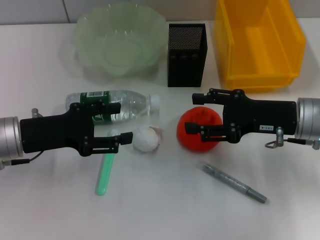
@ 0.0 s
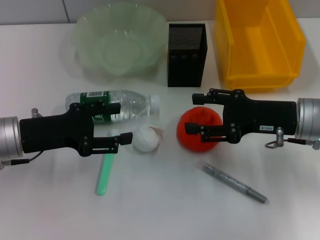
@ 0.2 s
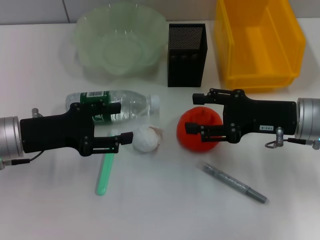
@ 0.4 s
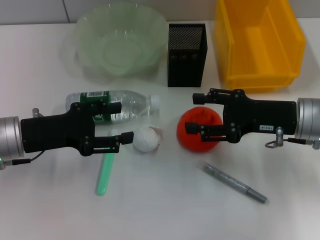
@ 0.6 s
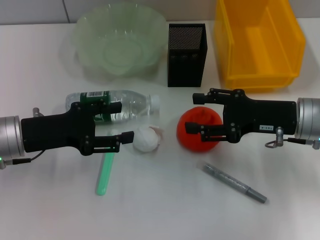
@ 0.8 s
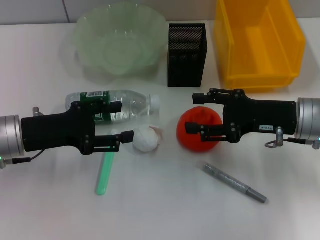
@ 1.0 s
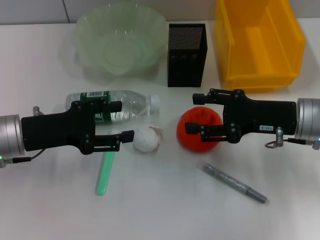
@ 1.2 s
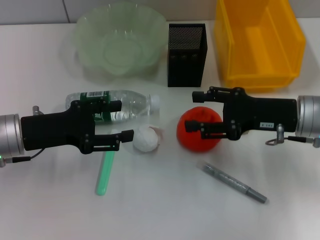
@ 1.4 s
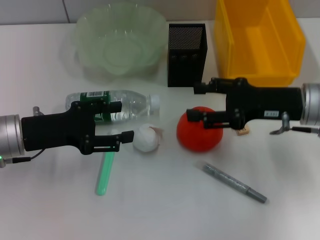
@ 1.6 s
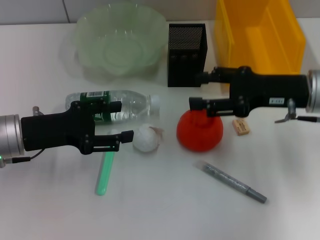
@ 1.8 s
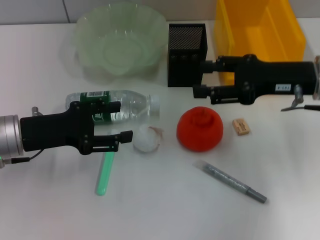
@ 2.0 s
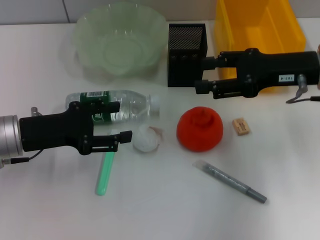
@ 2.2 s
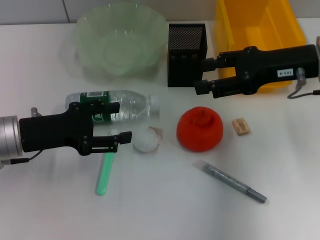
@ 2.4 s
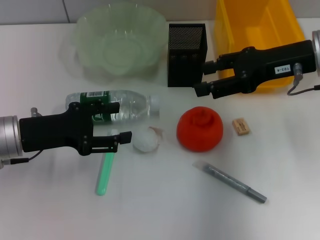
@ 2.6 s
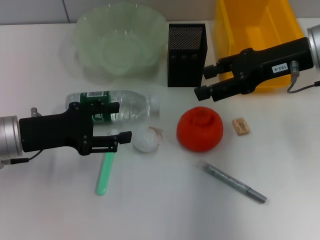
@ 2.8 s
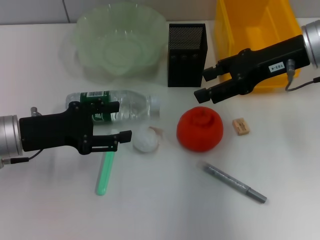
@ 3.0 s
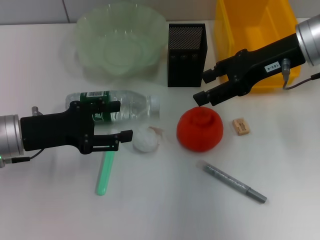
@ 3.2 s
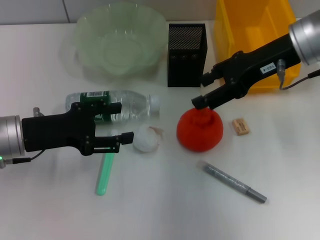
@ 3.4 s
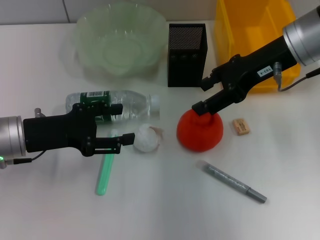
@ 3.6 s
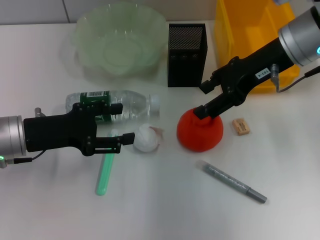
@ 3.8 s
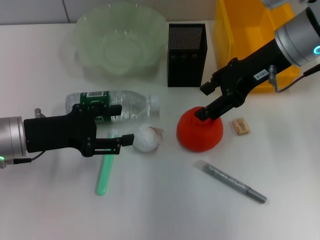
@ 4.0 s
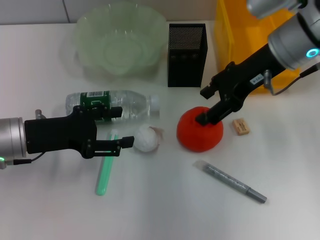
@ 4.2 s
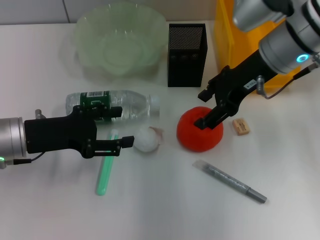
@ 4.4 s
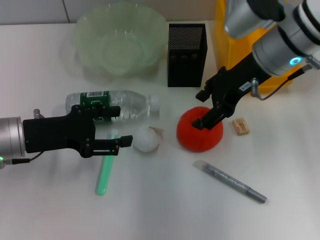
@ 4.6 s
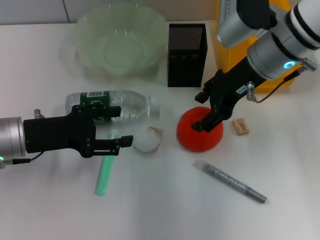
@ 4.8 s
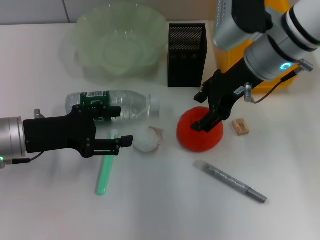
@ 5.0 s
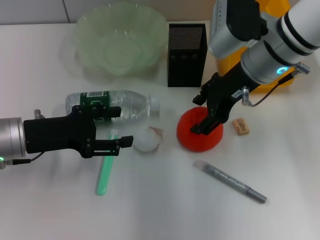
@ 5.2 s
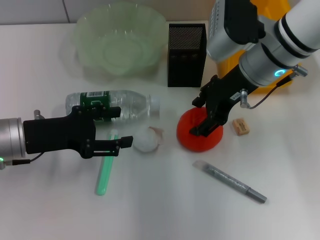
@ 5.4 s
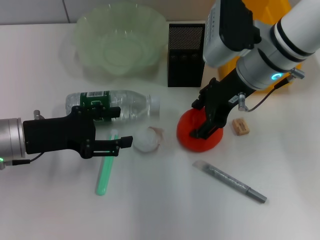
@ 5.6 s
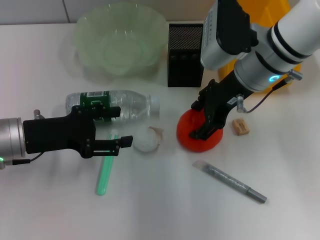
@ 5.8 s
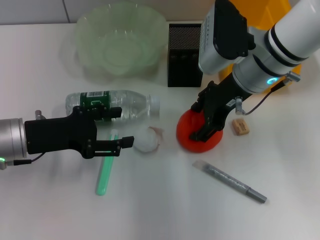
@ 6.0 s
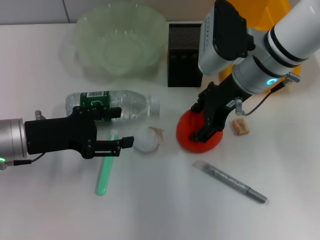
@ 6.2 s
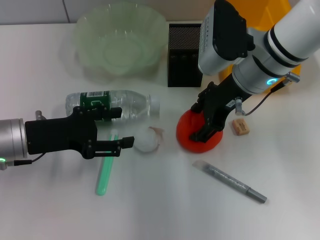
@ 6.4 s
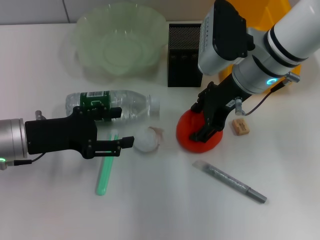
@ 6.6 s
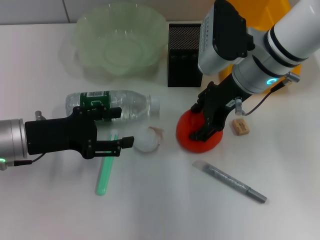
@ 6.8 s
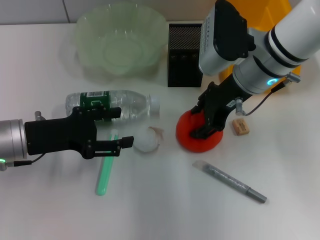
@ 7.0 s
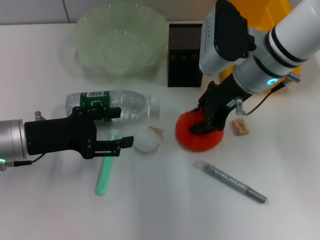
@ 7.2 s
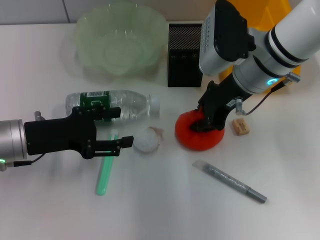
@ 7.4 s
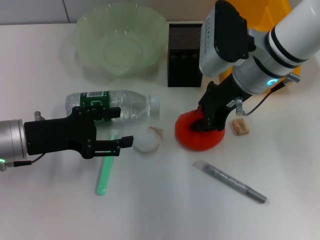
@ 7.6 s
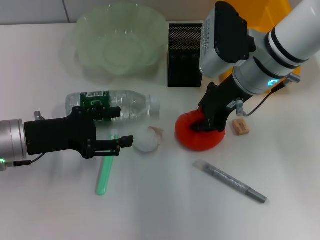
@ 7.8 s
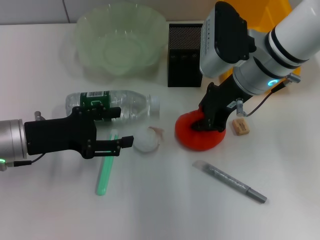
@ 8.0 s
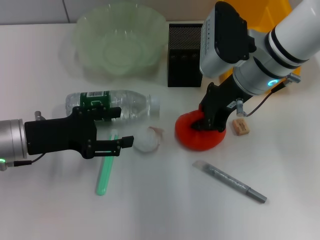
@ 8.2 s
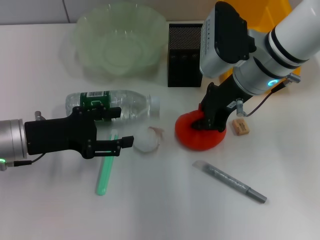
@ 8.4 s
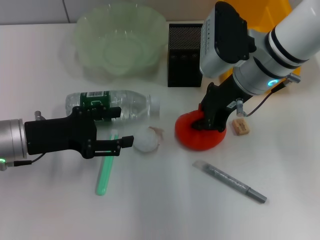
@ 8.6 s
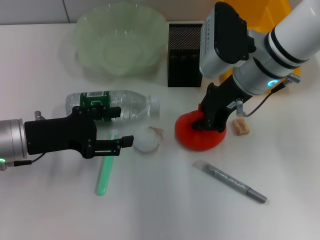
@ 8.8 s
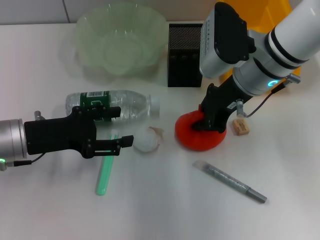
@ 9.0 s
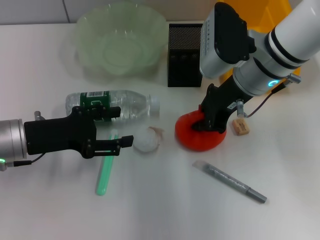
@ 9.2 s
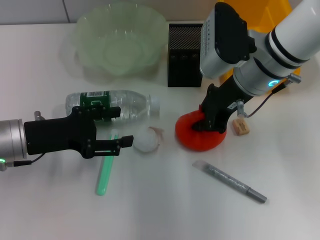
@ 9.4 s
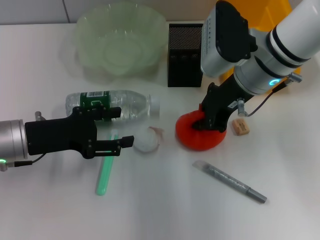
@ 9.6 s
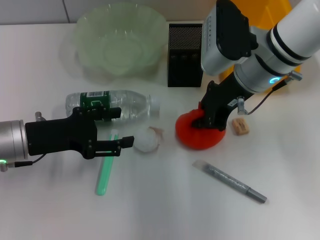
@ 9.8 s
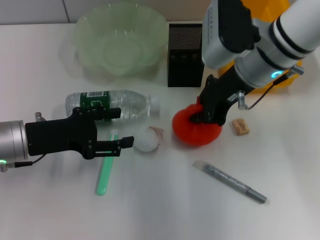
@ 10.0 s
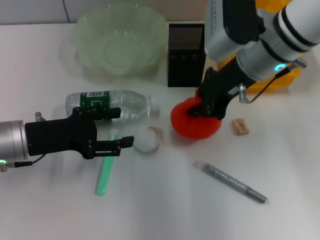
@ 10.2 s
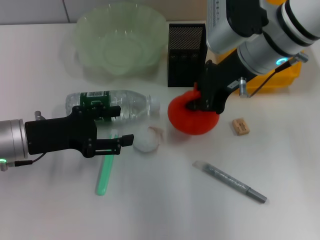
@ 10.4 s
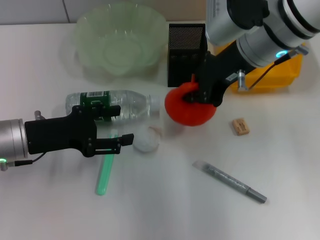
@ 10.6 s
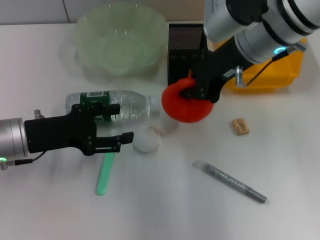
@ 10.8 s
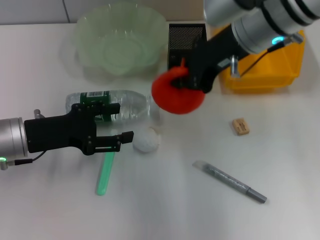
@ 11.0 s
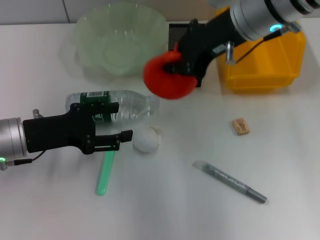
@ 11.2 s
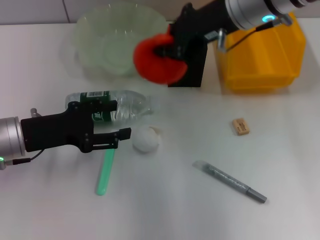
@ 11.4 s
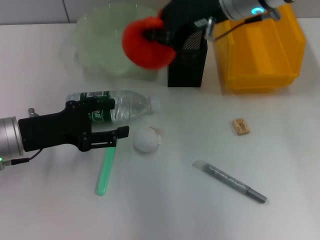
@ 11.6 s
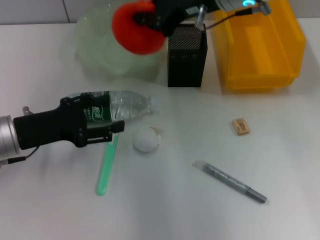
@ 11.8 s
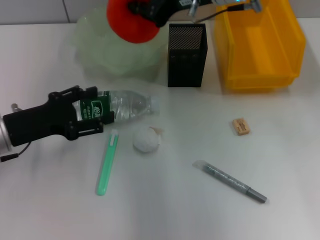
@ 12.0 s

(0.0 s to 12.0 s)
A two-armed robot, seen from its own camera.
Step, 0.0 s - 9.6 s: Grab the orange with the right hand.
0.0 s - 1.6 s: The grippers stay close to where they were, moving slightly.
1.6 s - 3.0 s: The right gripper heads upward and forward, covering approximately 10 cm.
3.0 s - 4.4 s: The right gripper moves to the left, roughly 5 cm.
4.4 s - 6.0 s: The grippers move only a little.
6.0 s - 7.6 s: The right gripper closes.
7.6 s - 9.0 s: Both grippers stay put.
9.0 s - 10.4 s: There are only small adjustments of the grippers.
10.4 s - 12.0 s: The right gripper ends up some 5 cm from where it was.

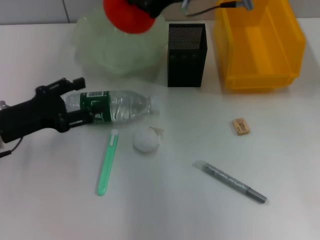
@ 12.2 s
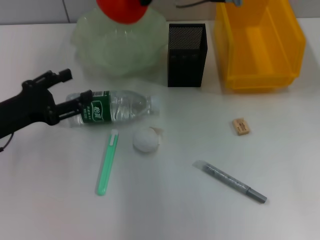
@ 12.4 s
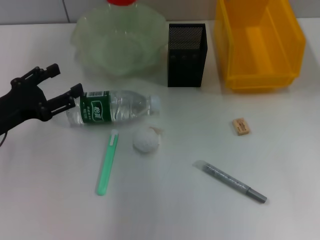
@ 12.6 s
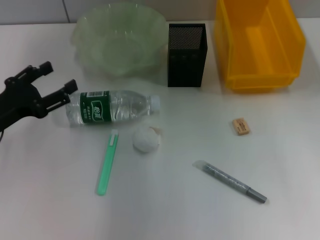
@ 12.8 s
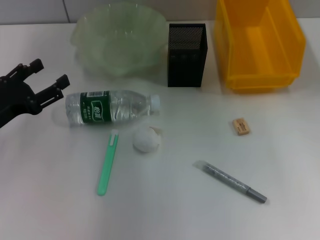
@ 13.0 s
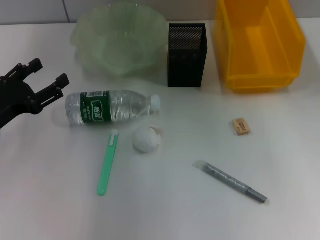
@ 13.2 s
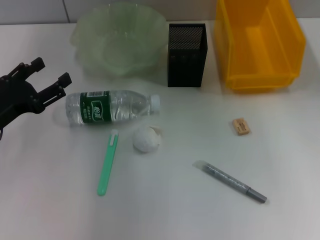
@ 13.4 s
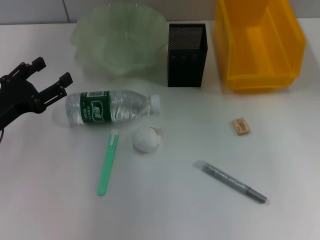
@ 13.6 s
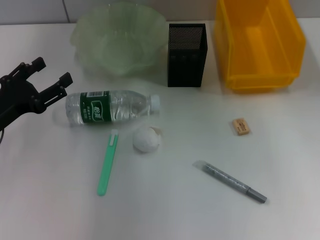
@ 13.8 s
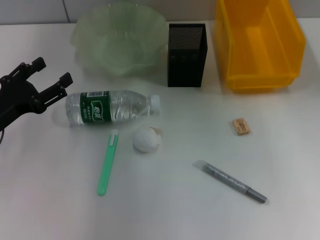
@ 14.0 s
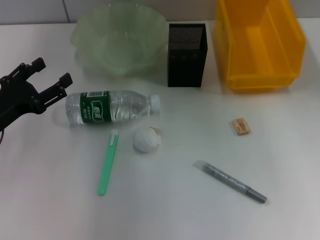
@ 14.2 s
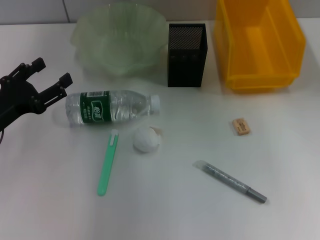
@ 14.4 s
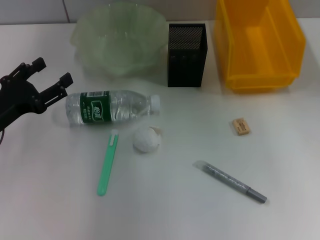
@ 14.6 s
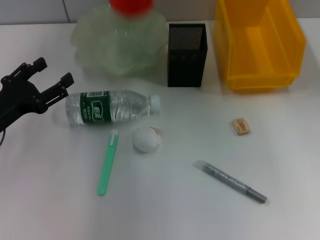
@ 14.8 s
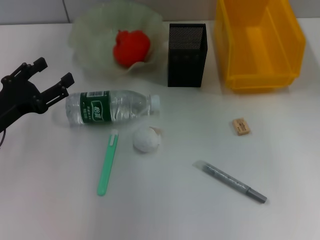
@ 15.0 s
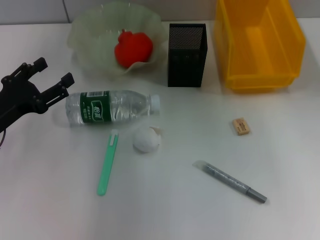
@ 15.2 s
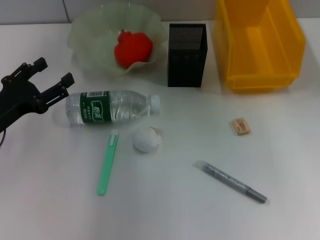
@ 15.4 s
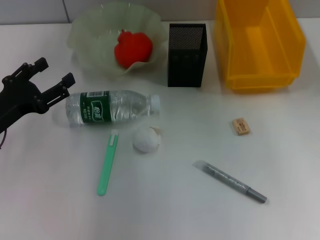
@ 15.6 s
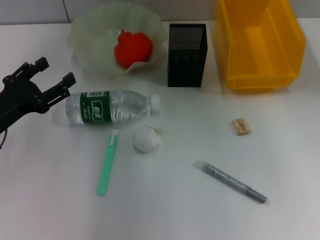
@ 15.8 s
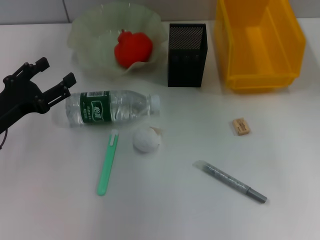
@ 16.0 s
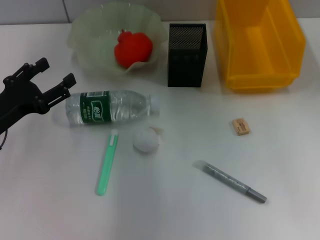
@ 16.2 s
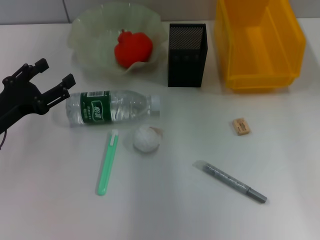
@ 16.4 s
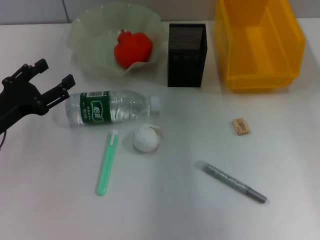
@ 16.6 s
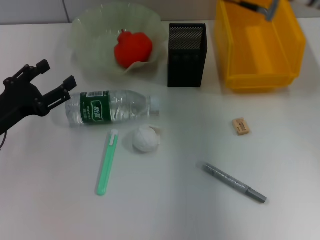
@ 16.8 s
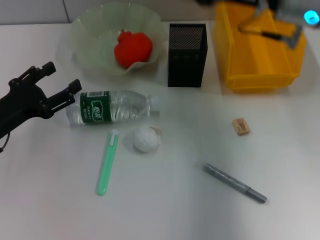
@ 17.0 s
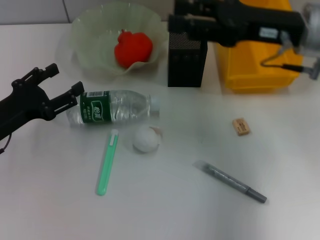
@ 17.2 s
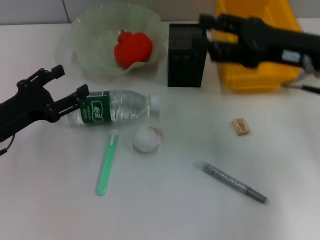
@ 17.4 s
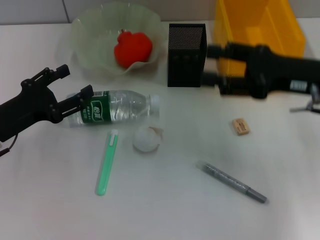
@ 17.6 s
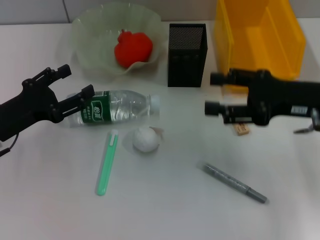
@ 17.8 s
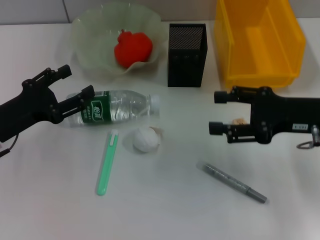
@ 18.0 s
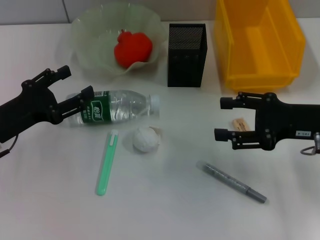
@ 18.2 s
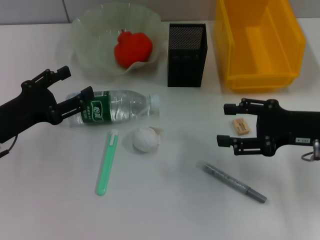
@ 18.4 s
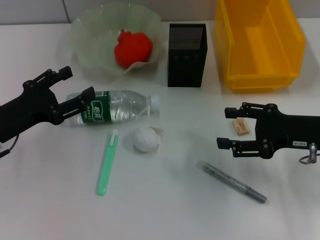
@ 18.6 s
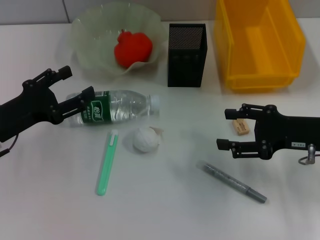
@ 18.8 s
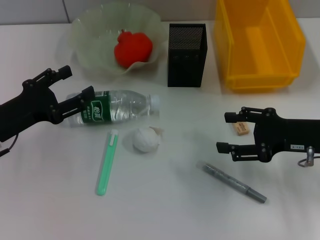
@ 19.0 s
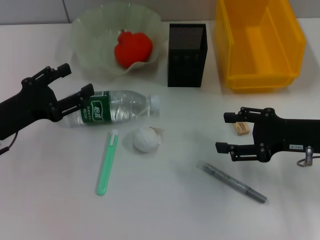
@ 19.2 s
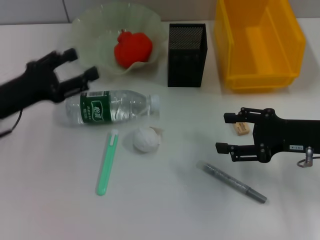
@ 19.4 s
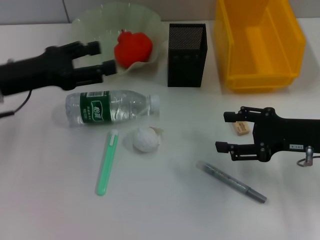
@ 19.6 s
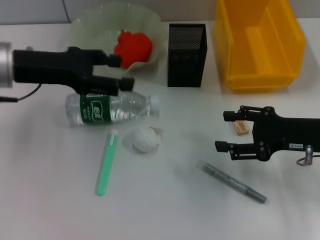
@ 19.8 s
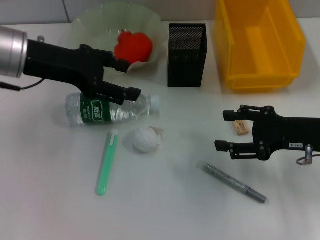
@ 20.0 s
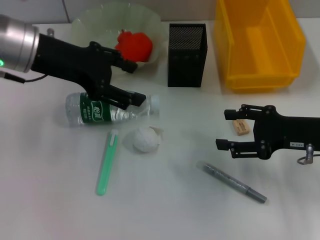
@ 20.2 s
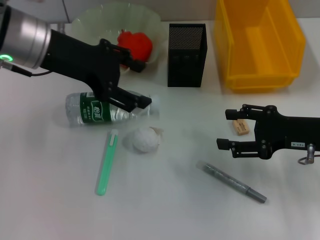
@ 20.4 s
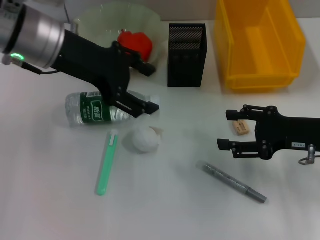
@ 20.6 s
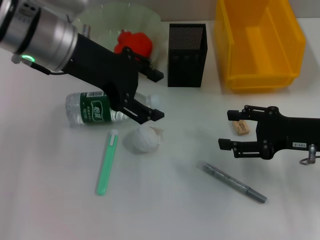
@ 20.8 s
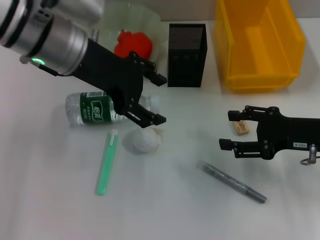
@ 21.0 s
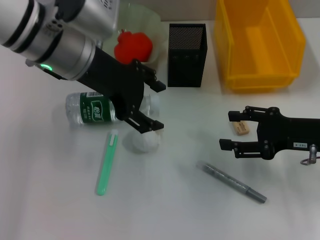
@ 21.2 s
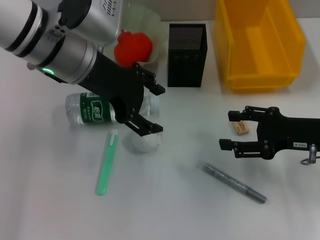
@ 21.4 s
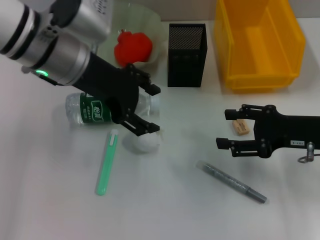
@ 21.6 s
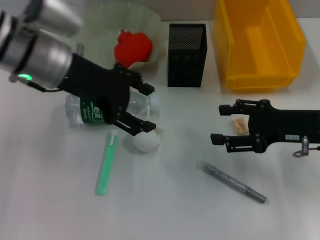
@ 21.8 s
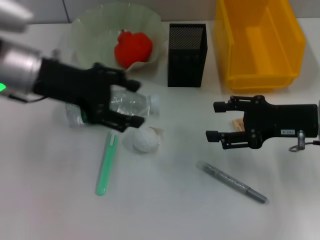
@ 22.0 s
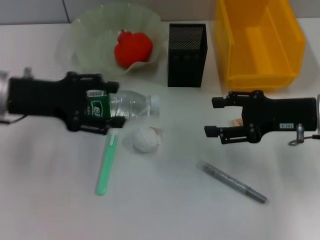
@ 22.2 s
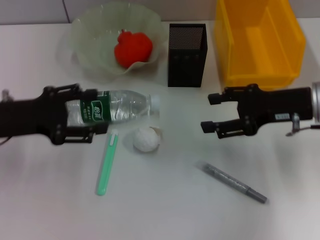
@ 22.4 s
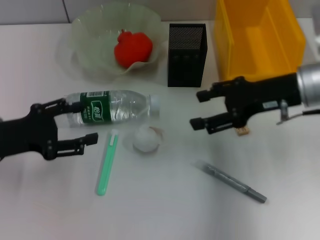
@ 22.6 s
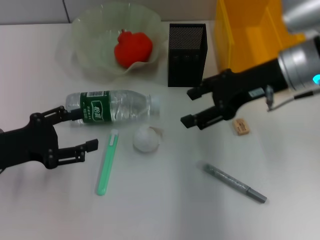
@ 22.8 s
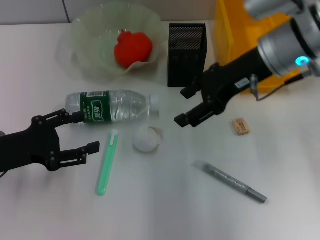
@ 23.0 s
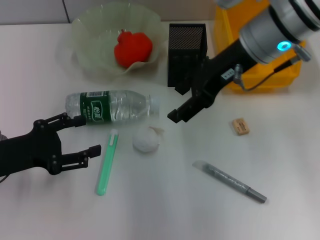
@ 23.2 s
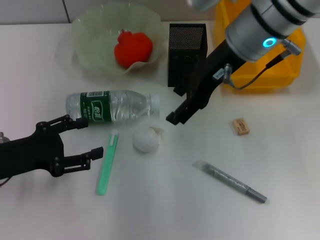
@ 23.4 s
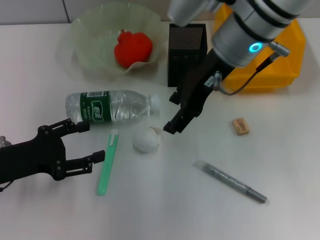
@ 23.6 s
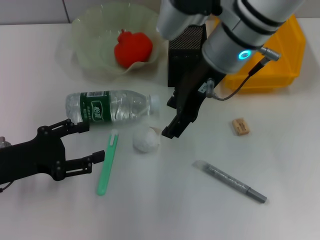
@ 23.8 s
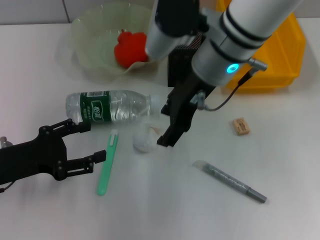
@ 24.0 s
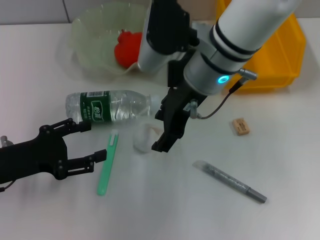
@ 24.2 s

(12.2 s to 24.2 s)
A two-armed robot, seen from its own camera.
Step, 12.2 s - 15.2 s: Place the orange into the fruit bowl with the right hand.
12.2 s - 13.8 s: The right gripper moves about 5 cm.
13.8 s - 15.2 s: The right gripper opens up.
15.2 s - 16.6 s: The right gripper is displaced to the right by about 5 cm.
16.6 s - 18.2 s: The right gripper shifts roughly 25 cm to the right, backward and downward.
18.2 s - 19.8 s: The left gripper heads upward and forward, covering about 15 cm.
19.8 s - 21.2 s: The left gripper goes approximately 10 cm to the right.
21.2 s - 22.6 s: The right gripper is displaced upward, to the left and forward by roughly 10 cm; the left gripper travels to the left, downward and backward by roughly 20 cm.
22.6 s - 24.2 s: The right gripper shifts approximately 15 cm to the left.
